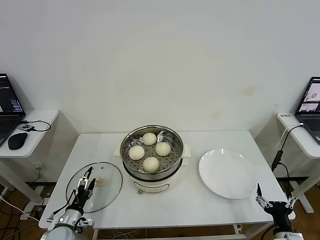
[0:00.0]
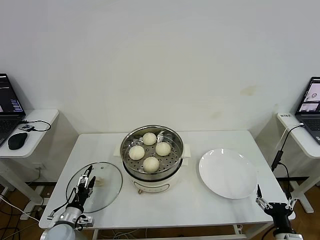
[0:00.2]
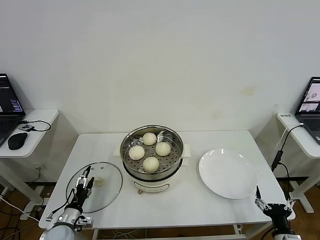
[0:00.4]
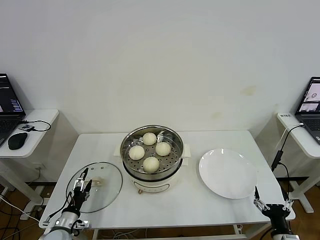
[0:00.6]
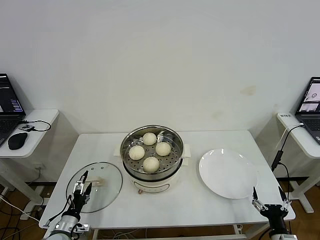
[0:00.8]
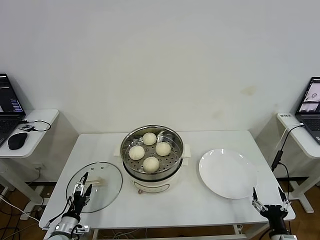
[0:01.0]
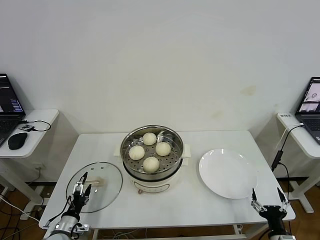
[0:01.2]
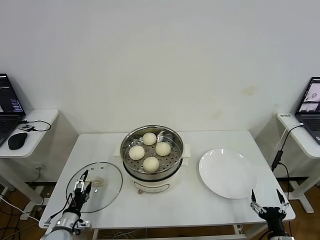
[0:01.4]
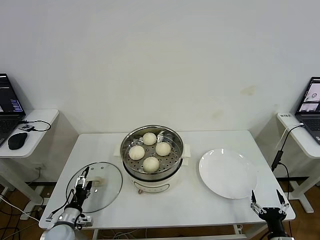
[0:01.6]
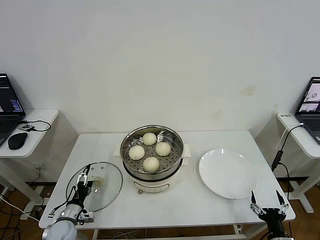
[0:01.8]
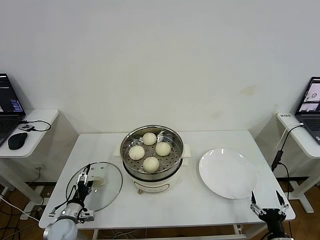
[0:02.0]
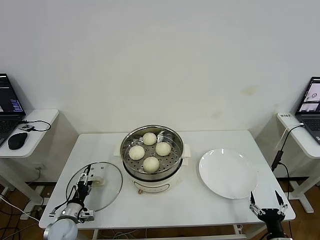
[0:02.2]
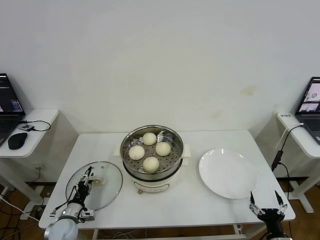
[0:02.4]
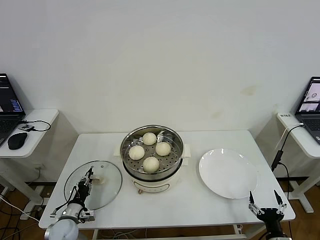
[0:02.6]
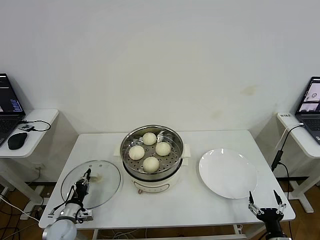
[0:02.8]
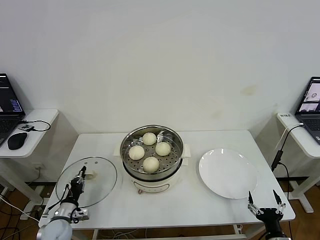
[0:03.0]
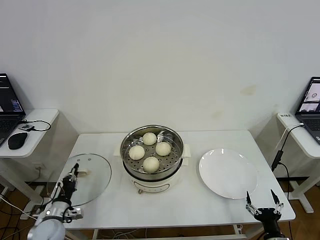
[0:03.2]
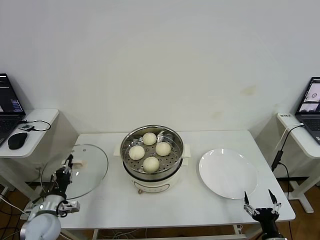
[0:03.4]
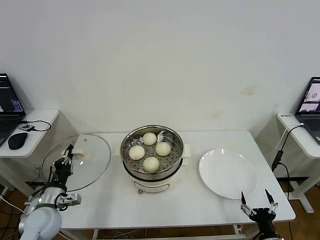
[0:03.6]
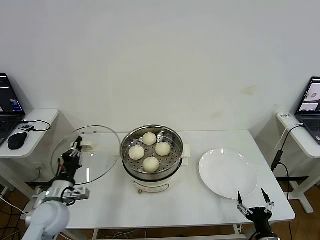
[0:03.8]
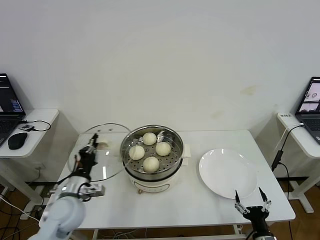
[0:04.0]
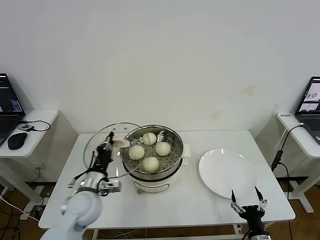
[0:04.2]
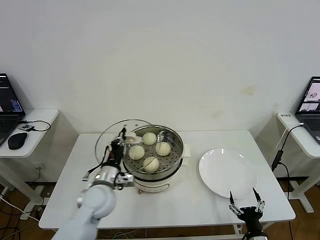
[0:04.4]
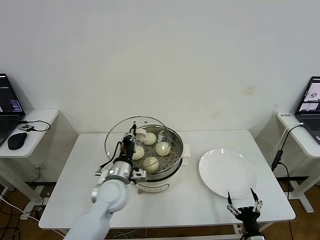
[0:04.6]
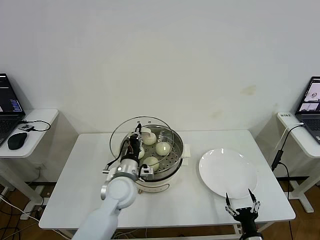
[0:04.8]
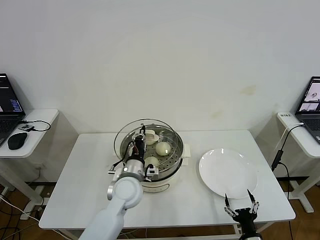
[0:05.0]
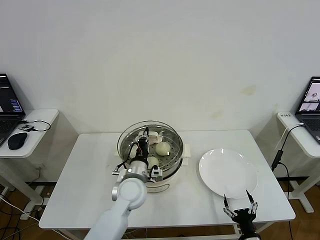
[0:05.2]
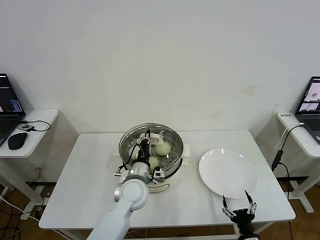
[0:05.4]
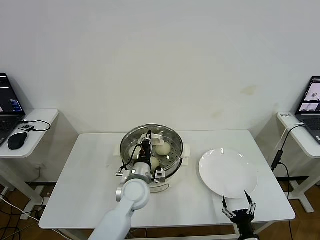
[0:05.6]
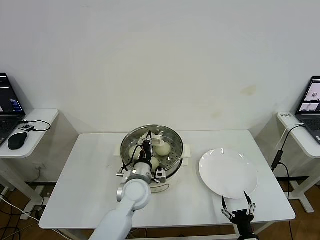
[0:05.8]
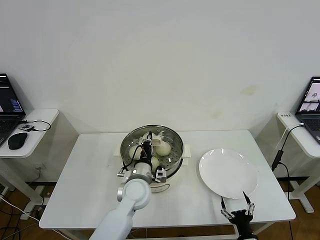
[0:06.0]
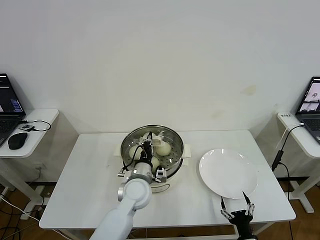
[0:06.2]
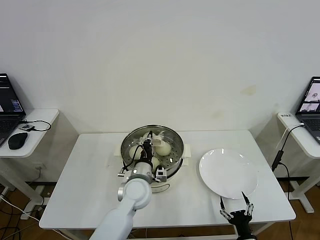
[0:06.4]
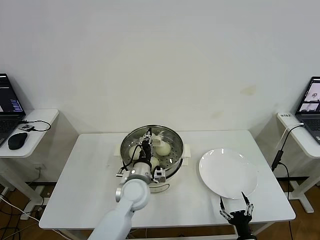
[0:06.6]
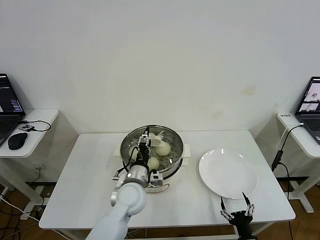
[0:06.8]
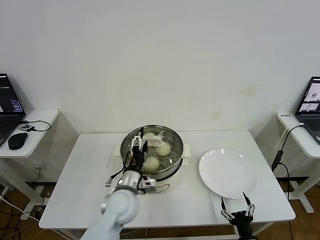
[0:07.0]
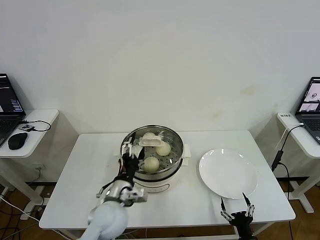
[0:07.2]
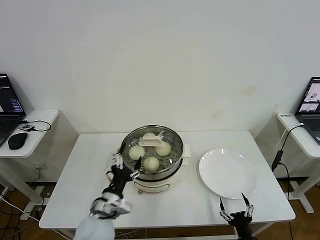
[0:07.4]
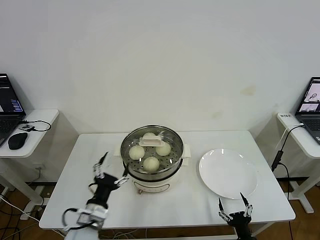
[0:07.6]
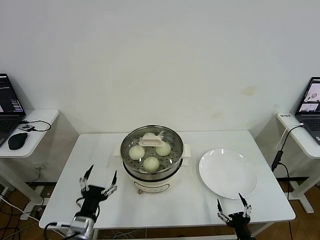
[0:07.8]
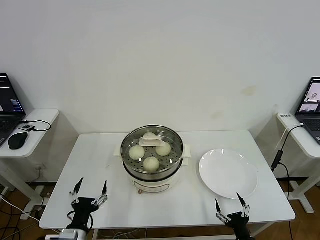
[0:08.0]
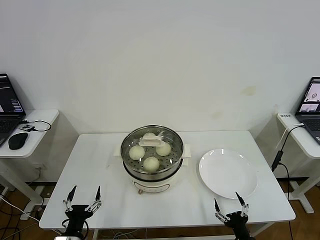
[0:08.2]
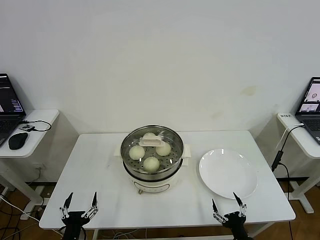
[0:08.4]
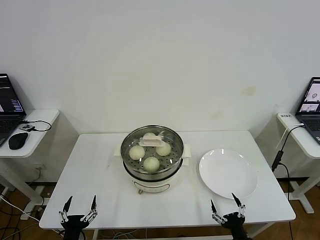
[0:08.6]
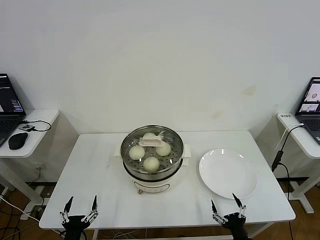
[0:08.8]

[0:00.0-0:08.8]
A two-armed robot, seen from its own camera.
Step, 0:00.0 to 0:02.8: Grasp the pot lid with left gripper.
Step, 0:03.0 to 0:06.8: Place the pot lid on the steamer with left gripper.
0:00.0 to 0:01.4: There are only small adjustments of the grippers.
0:01.4 to 0:03.0: The left gripper closes its fingers.
0:03.0 to 0:04.4: The left gripper travels to the right and upward by roughly 25 cm. The right gripper heads to the left, covering some 5 cm.
0:04.4 to 0:05.8: The left gripper heads to the right, covering approximately 10 cm.
0:05.8 to 0:07.4: The left gripper moves backward and to the left, approximately 15 cm, and opens up.
0:07.4 to 0:08.8: The left gripper goes approximately 20 cm backward, to the left and downward.
